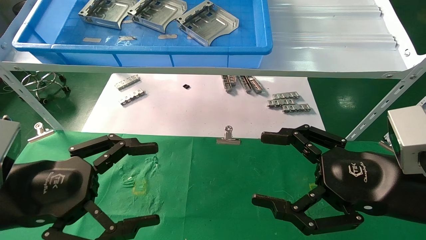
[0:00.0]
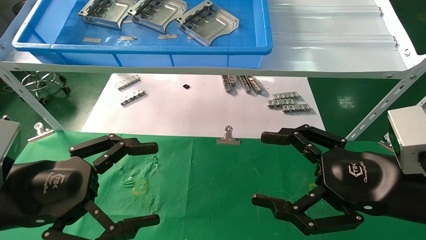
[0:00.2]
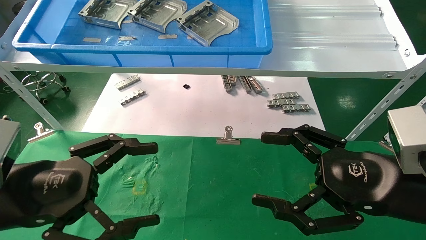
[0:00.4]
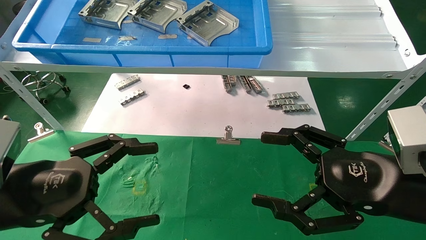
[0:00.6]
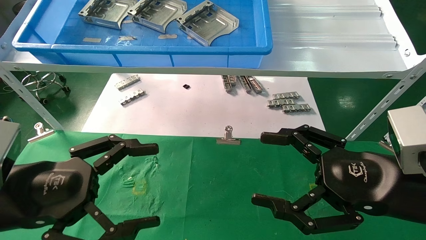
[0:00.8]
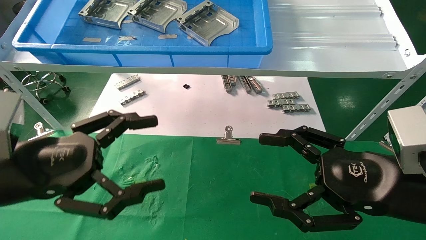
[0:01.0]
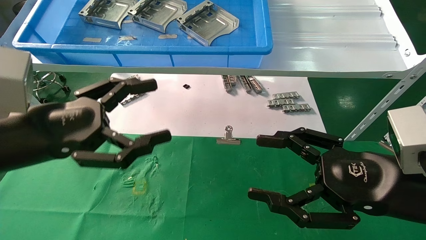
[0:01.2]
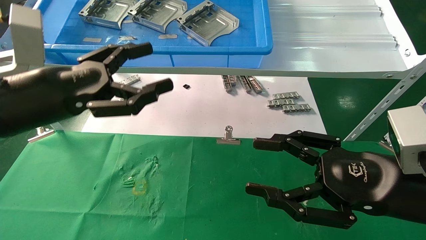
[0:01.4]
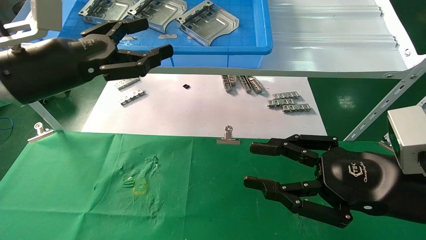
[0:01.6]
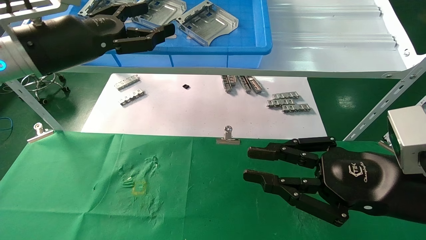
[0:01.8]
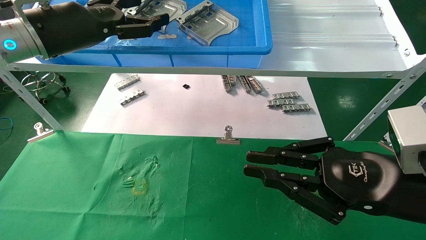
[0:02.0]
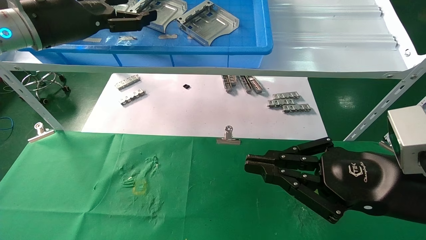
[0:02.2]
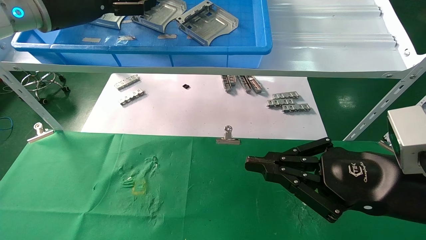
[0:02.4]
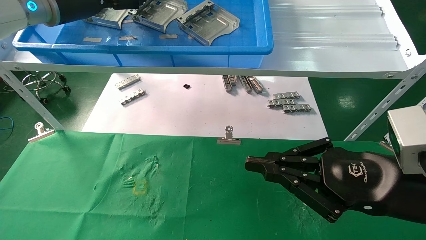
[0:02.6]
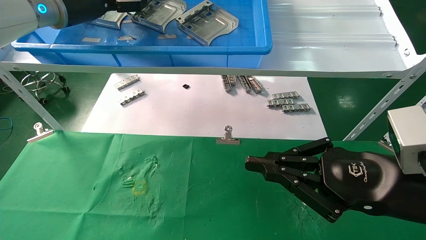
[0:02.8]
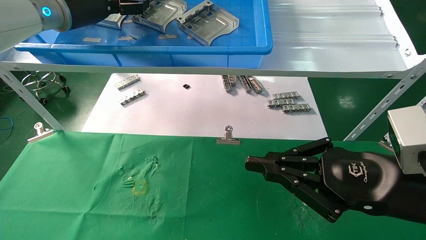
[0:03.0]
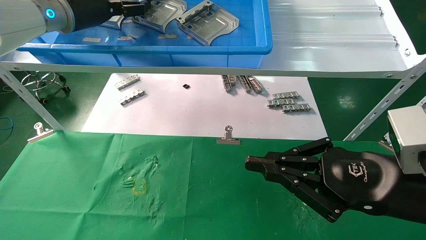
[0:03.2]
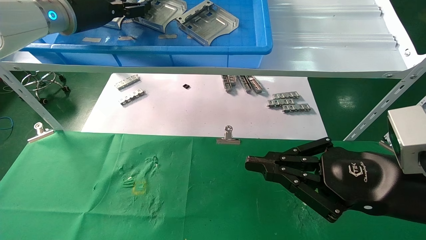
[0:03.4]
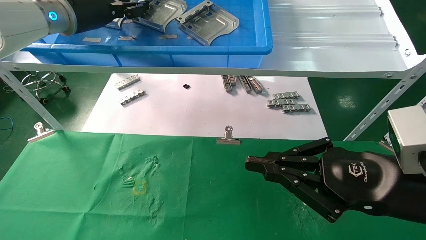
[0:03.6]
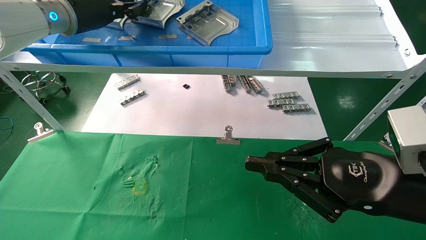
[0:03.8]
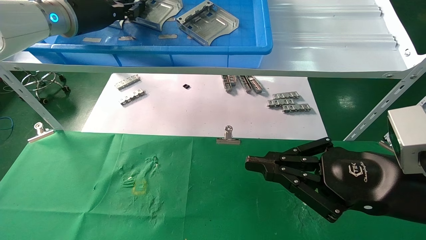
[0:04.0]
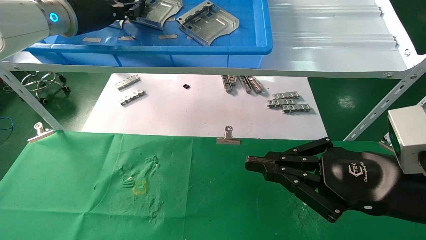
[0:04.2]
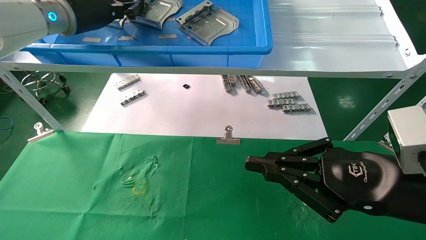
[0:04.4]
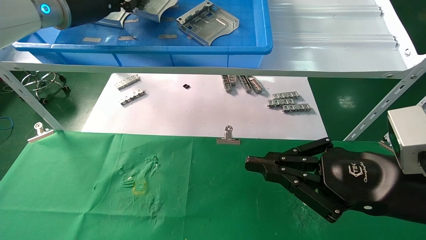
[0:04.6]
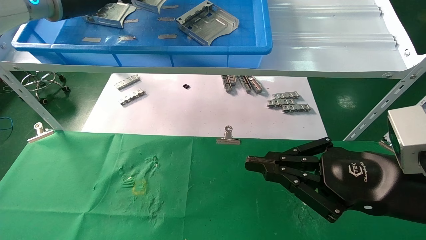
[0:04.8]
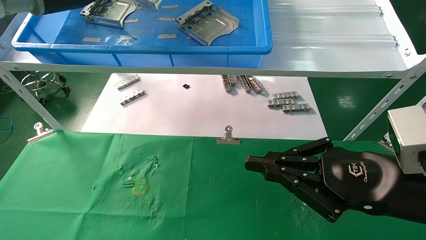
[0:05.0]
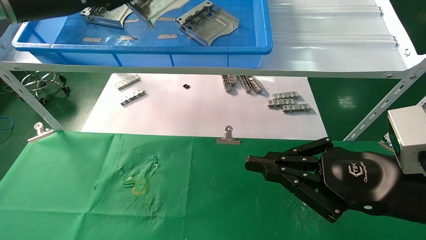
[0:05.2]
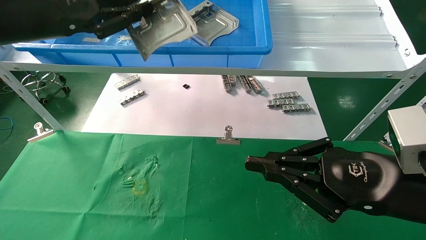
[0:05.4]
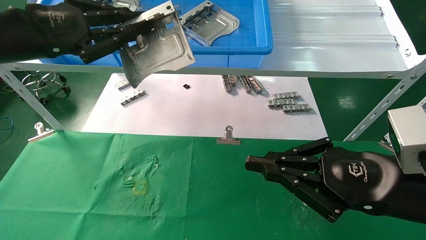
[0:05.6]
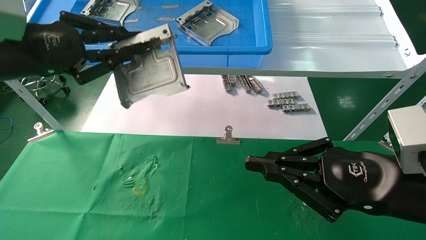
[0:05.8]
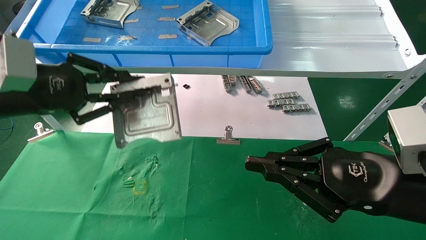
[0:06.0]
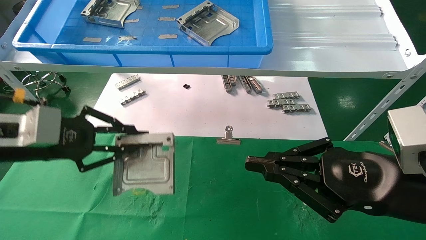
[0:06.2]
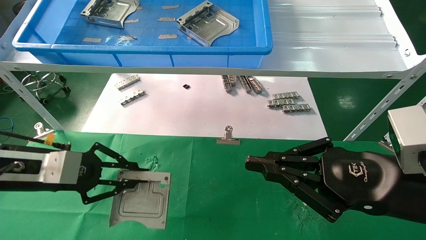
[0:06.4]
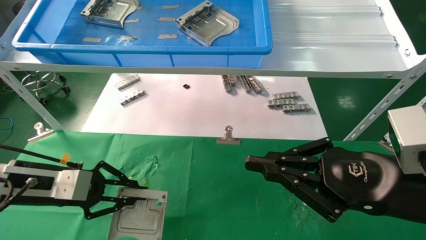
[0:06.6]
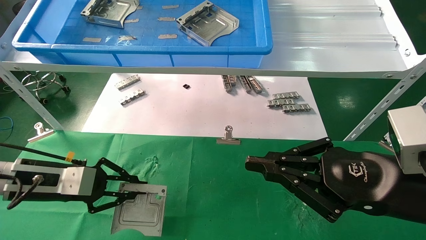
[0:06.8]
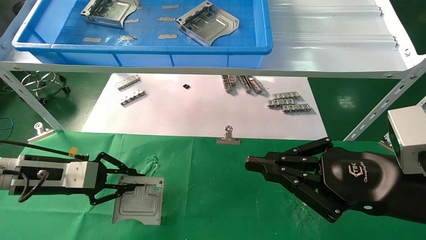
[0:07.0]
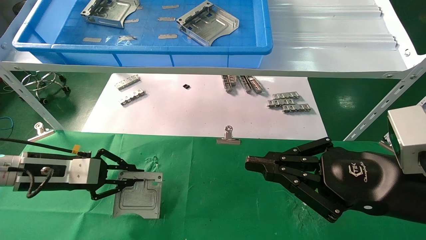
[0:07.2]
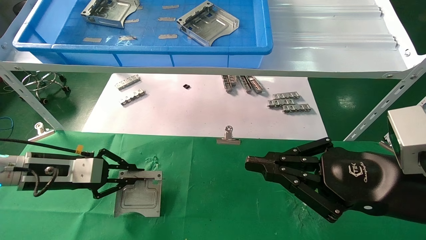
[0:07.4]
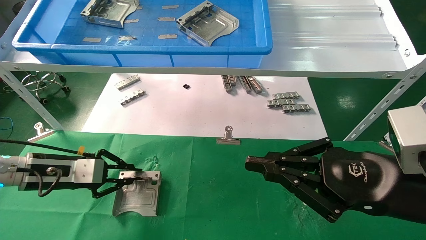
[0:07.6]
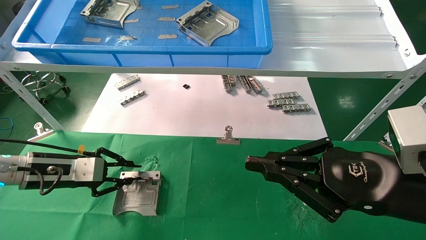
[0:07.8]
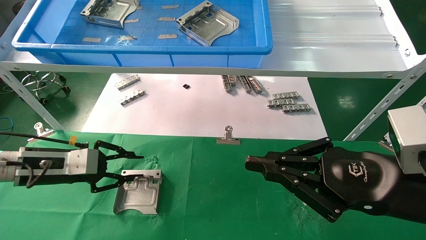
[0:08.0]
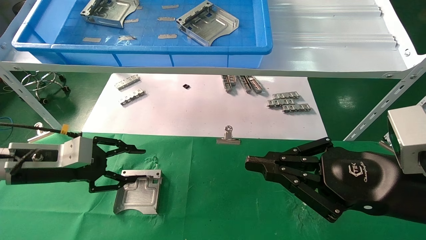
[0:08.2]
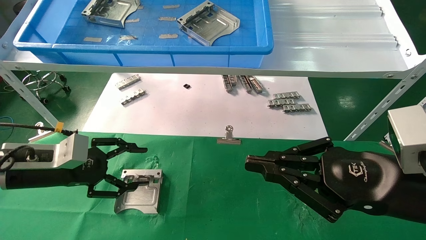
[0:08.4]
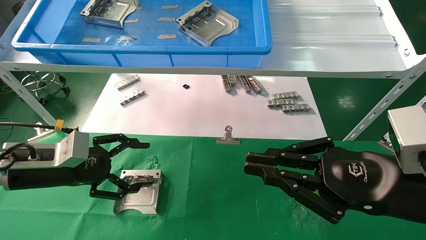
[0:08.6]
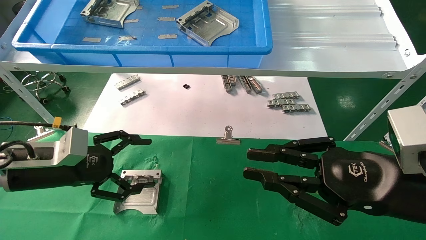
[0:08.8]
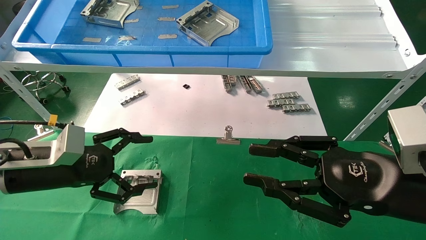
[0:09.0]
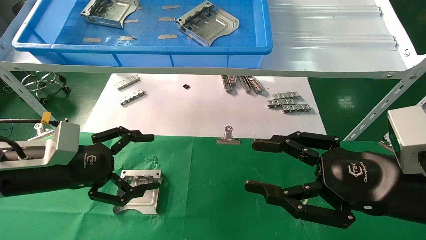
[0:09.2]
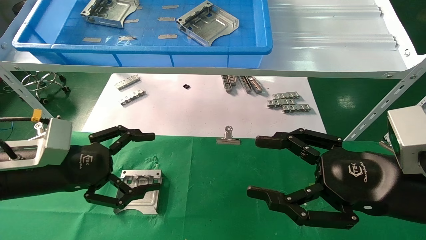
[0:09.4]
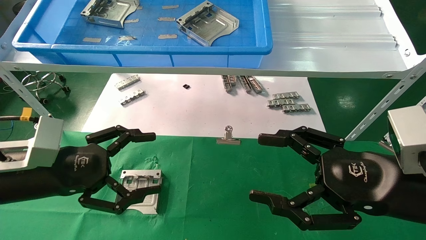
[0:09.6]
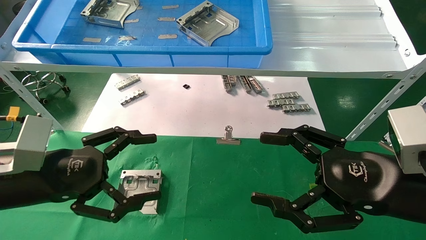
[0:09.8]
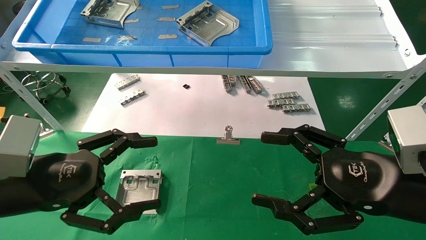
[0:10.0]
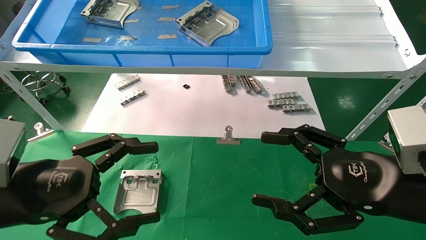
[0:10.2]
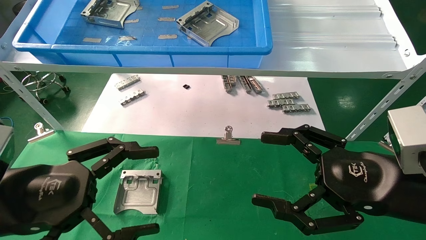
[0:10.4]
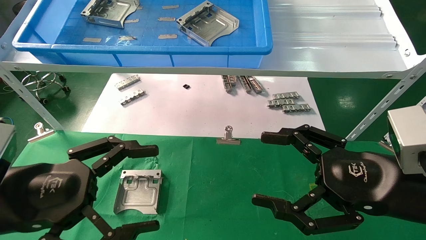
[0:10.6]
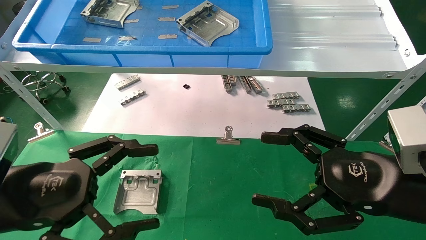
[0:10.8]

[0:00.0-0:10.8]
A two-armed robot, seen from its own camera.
Task of the whole recording: use the mechanical arm to pick up the parts and place them on the table.
Step, 0:01.0 to 0:04.2: Pick up the hard drive bracket from the feeding area.
Step, 0:04.4 to 0:07.8: Place the hard drive bracket into the box.
0:00.0 to 0:01.6: The right gripper closes its fingers; the left gripper shifts about 15 cm upward and forward.
0:01.6 to 0:03.0: The left gripper shifts some 15 cm forward and upward. Meanwhile the right gripper closes up.
0:03.0 to 0:04.6: The left gripper closes its fingers.
0:04.6 to 0:06.2: The left gripper moves downward and backward, approximately 25 cm.
0:06.2 to 0:07.8: The left gripper shifts about 10 cm downward and forward.
0:07.8 to 0:09.2: The right gripper opens up. Meanwhile the left gripper travels backward by approximately 5 cm, and opens.
0:09.2 to 0:10.8: The left gripper travels backward by about 10 cm; the right gripper opens its fingers.
